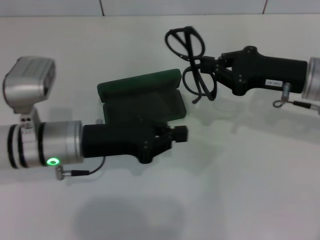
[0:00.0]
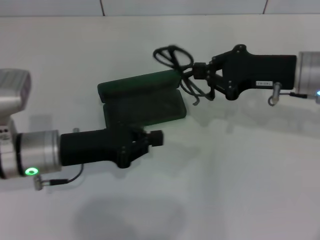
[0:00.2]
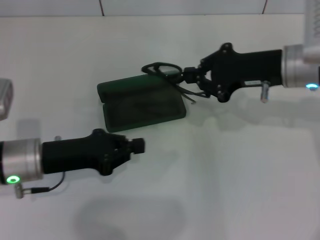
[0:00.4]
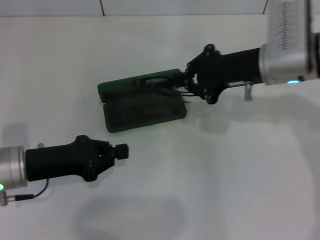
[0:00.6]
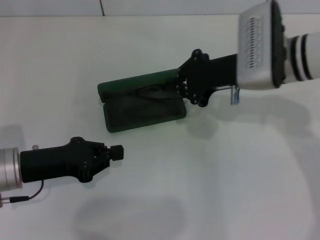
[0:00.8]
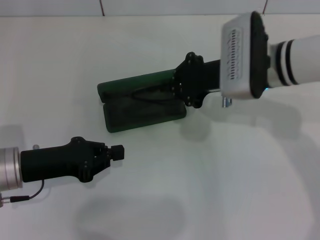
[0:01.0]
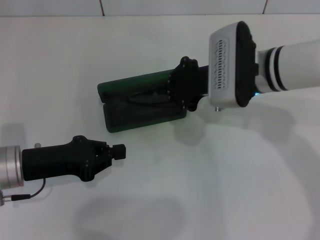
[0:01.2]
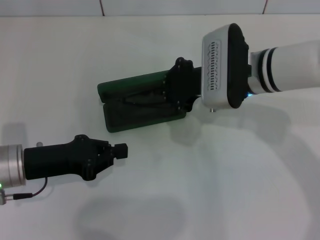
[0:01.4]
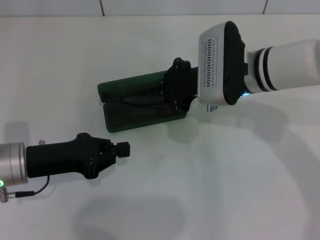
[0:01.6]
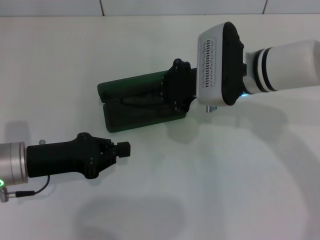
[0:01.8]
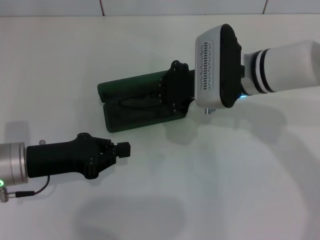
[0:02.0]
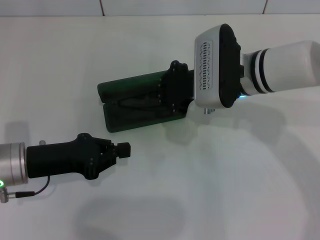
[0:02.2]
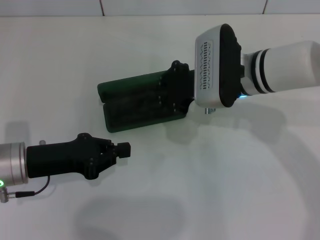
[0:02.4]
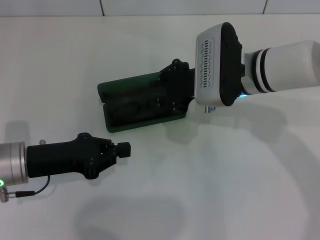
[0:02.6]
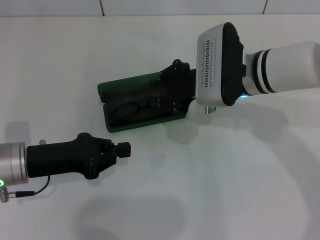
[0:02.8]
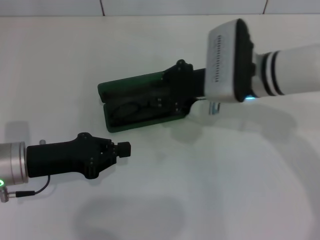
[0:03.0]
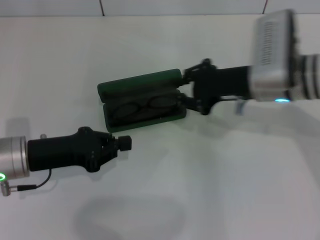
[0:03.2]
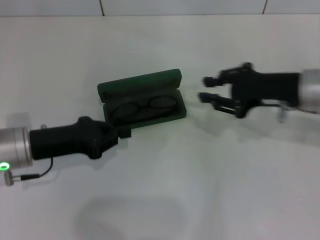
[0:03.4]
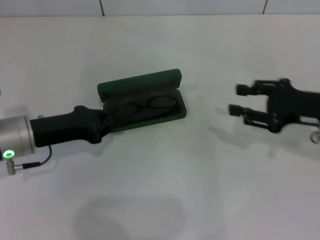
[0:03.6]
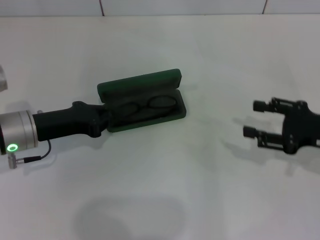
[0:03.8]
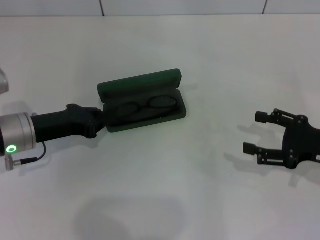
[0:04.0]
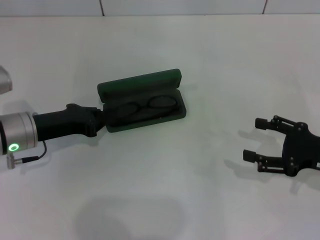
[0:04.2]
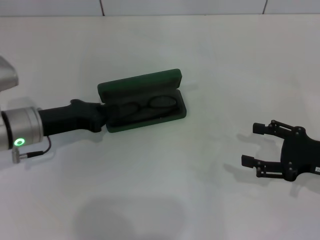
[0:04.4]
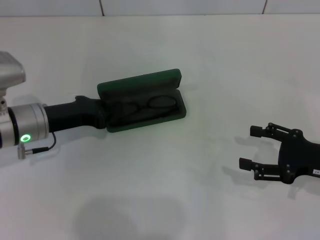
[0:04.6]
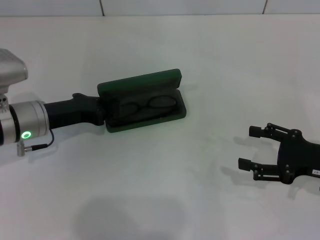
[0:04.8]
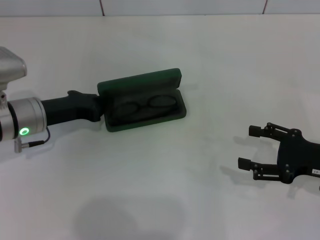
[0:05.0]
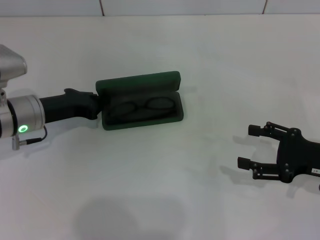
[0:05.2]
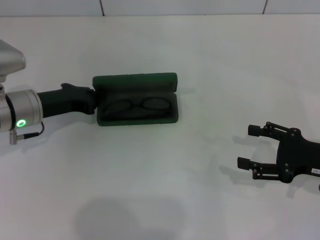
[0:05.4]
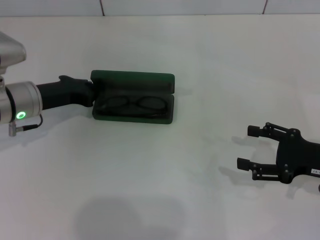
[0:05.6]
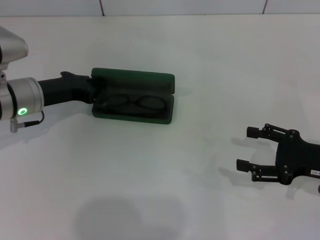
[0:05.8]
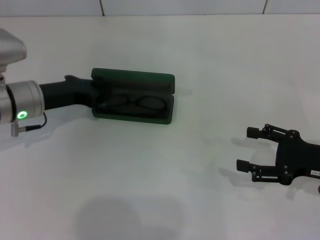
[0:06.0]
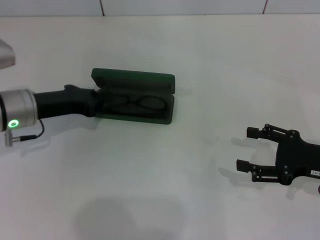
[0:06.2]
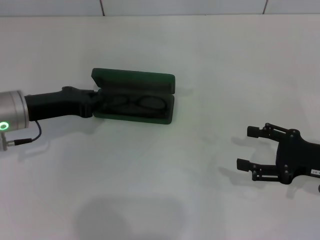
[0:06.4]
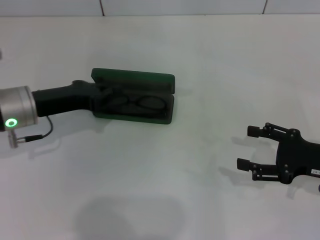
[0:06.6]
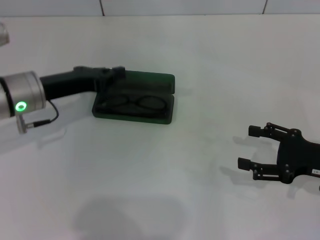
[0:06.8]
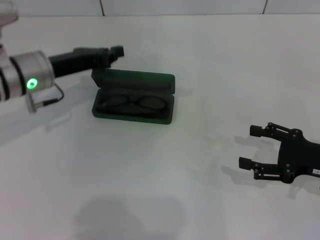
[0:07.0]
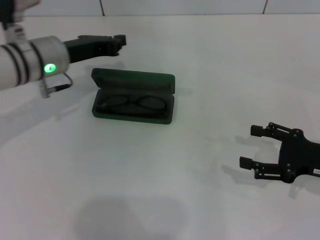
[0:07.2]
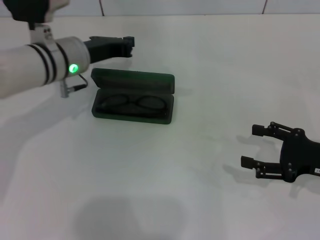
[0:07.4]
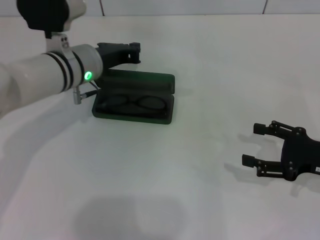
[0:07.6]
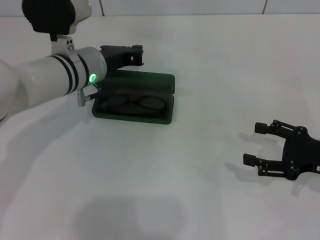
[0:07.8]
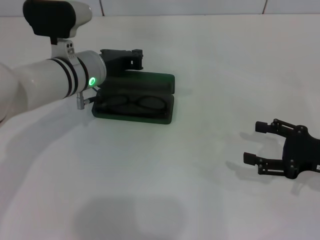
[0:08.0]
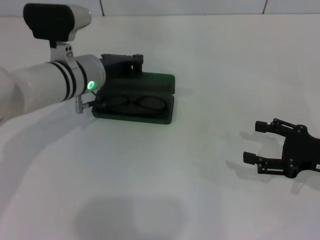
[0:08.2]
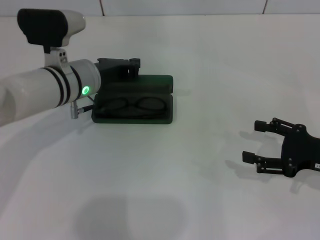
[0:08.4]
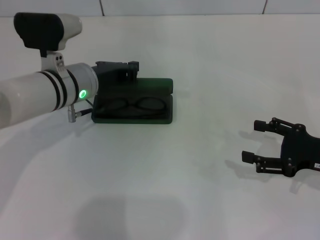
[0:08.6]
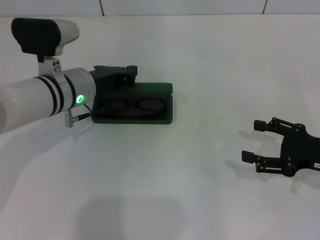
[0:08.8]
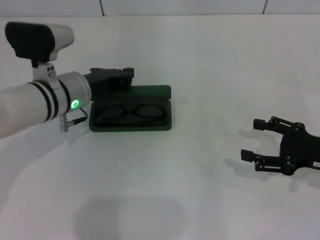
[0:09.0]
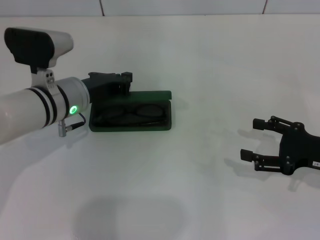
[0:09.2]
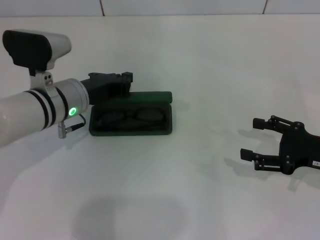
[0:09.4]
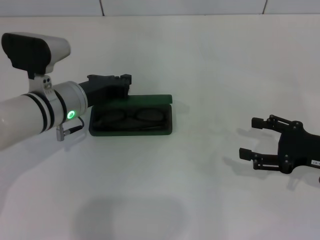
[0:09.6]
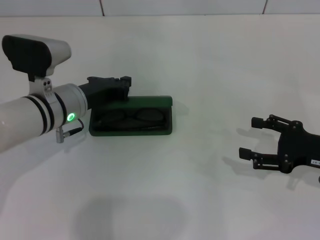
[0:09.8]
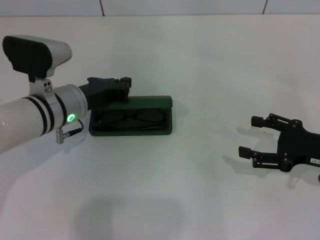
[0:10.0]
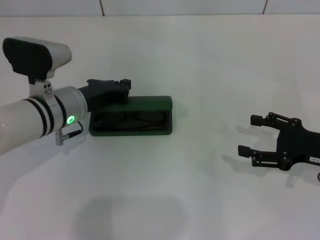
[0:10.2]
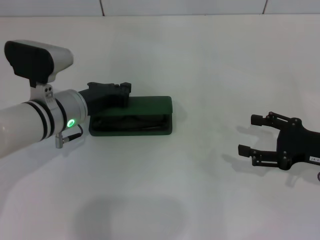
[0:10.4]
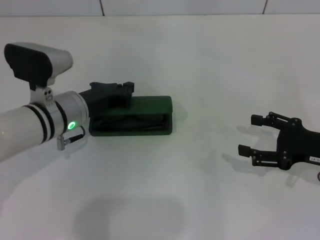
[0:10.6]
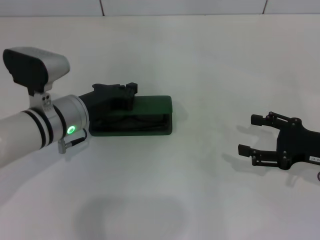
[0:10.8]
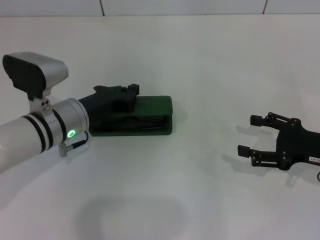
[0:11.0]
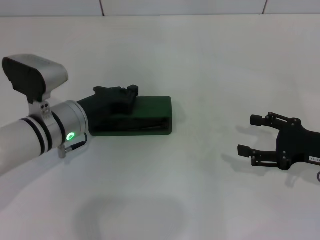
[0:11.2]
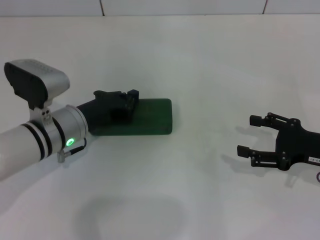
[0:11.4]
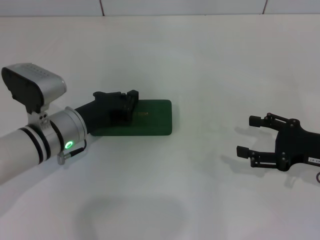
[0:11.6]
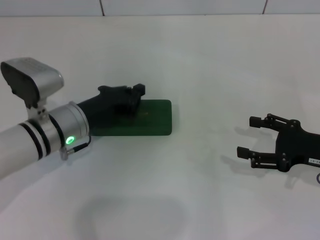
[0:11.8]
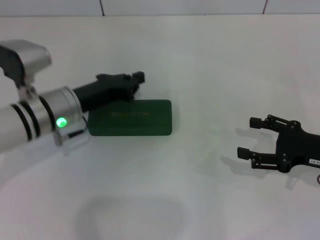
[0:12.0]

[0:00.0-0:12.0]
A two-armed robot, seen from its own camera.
Step, 0:00.0 to 0:02.4: Put the glasses into the case with your right hand.
Step, 0:02.6 to 0:11.4: Close the glasses case with your left hand.
0:00.0 to 0:01.6: The right gripper heads to the left, covering about 10 cm. Meanwhile the left gripper is displaced to the left by some 10 cm.
0:01.6 to 0:03.0: The grippers make only small movements.
0:03.0 to 0:04.4: The left gripper moves forward, approximately 5 cm. Meanwhile the right gripper travels to the right and backward by some 20 cm, and opens up.
0:04.4 to 0:06.0: The grippers stay close to where they were, moving slightly.
0:06.0 to 0:07.6: The left gripper heads to the right, covering some 10 cm.
0:07.6 to 0:09.0: The grippers move only a little.
0:09.0 to 0:10.4: There are only small adjustments of the grippers.
0:10.4 to 0:12.0: There are only small adjustments of the grippers.

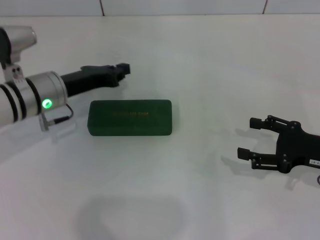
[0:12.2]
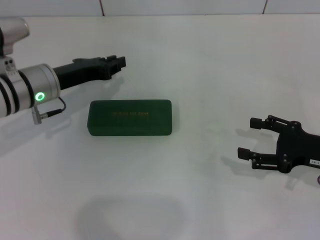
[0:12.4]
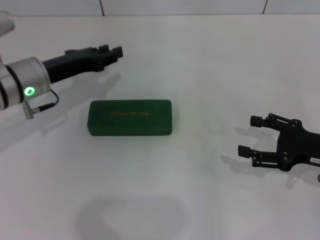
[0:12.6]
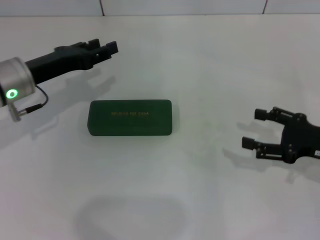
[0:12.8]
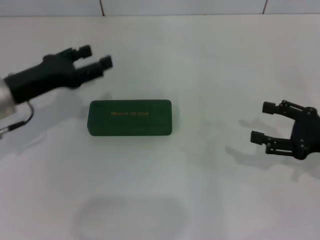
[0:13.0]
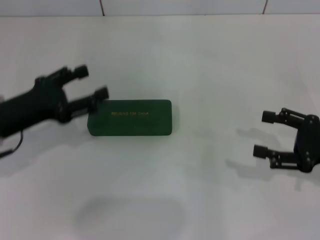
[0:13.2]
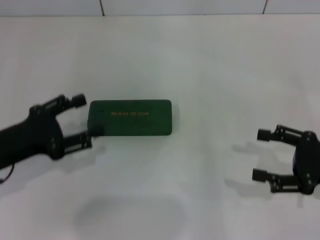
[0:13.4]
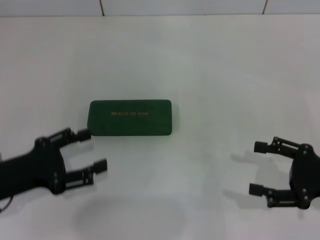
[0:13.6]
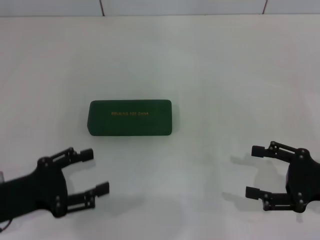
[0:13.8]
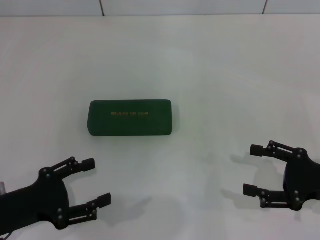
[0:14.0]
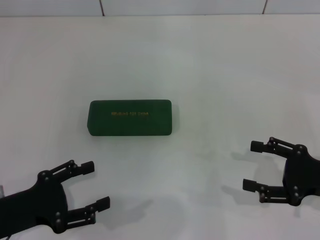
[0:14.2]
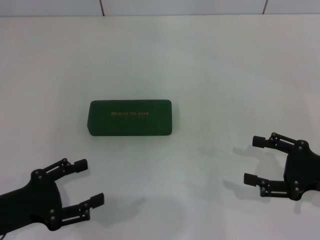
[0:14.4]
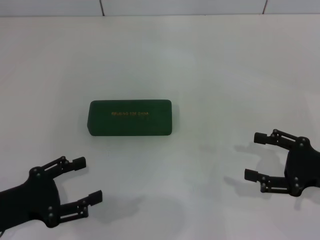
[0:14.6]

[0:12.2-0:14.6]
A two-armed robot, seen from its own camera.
0:12.2 to 0:13.4: The left gripper travels backward and to the left by some 15 cm, and opens.
0:13.4 to 0:14.6: The left gripper moves backward, some 5 cm.

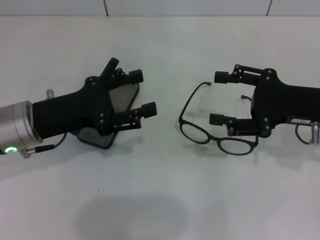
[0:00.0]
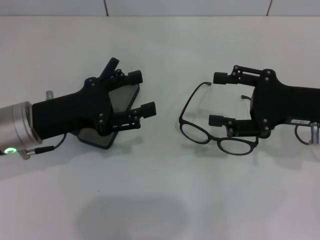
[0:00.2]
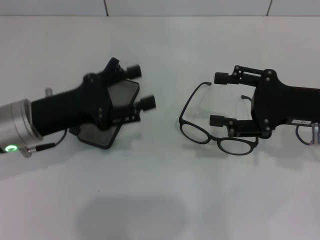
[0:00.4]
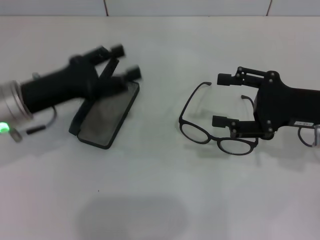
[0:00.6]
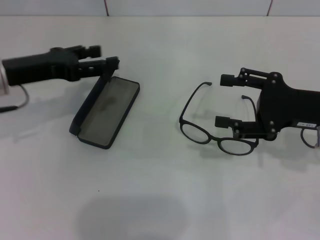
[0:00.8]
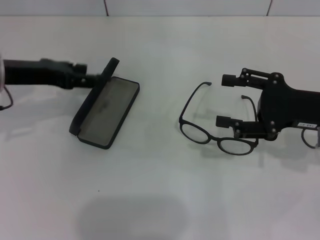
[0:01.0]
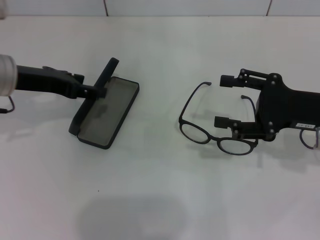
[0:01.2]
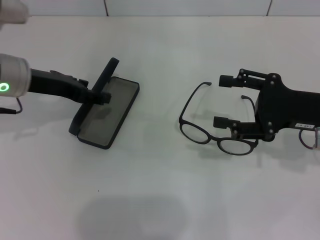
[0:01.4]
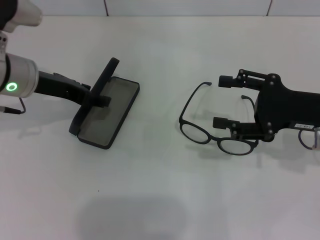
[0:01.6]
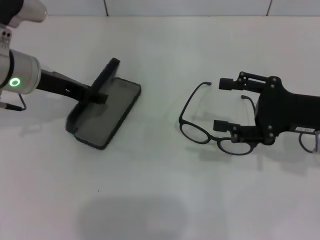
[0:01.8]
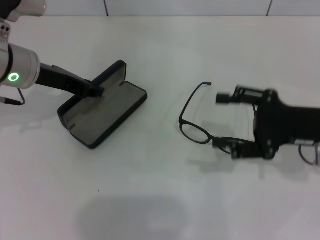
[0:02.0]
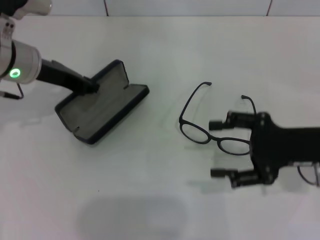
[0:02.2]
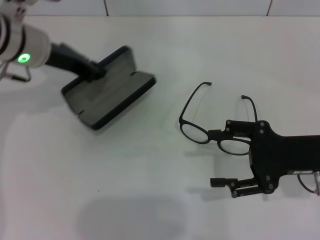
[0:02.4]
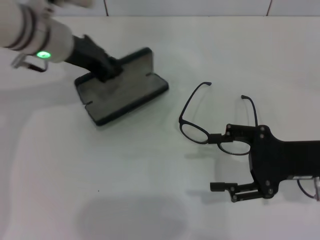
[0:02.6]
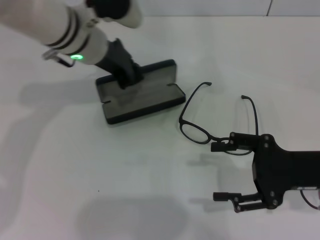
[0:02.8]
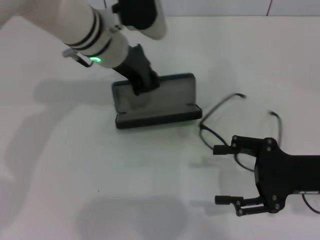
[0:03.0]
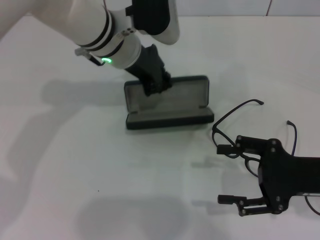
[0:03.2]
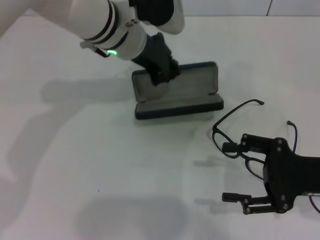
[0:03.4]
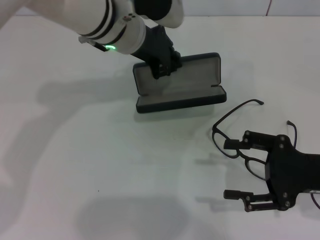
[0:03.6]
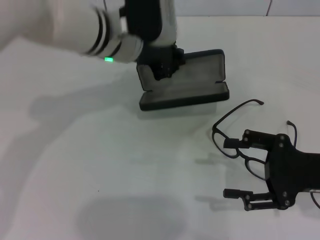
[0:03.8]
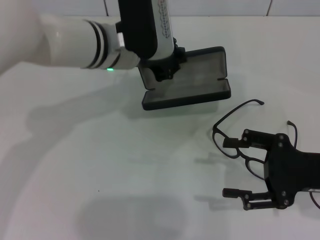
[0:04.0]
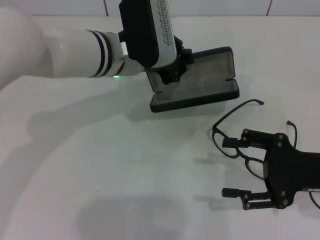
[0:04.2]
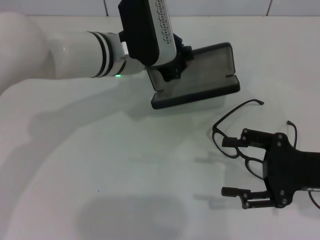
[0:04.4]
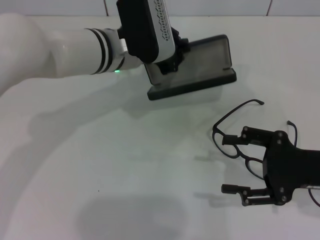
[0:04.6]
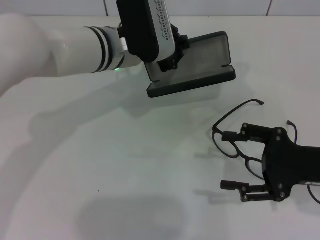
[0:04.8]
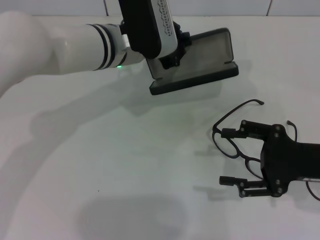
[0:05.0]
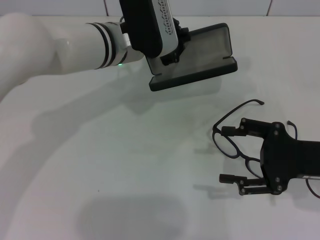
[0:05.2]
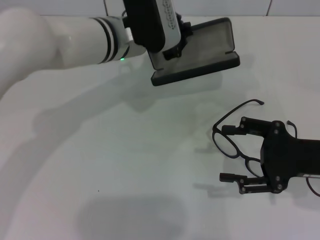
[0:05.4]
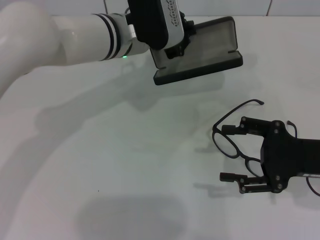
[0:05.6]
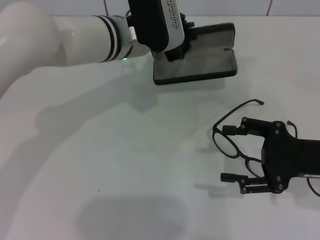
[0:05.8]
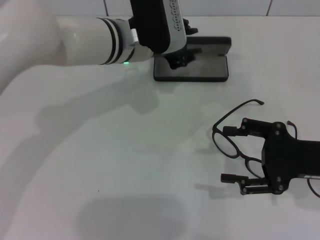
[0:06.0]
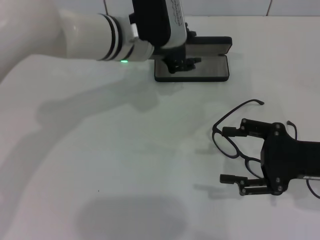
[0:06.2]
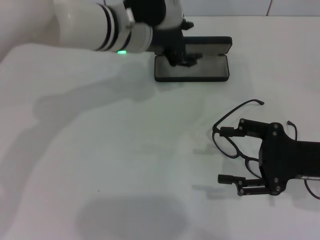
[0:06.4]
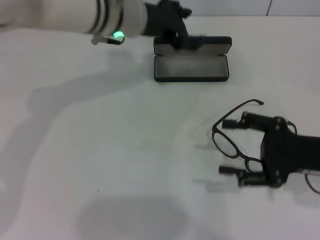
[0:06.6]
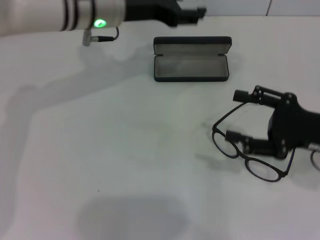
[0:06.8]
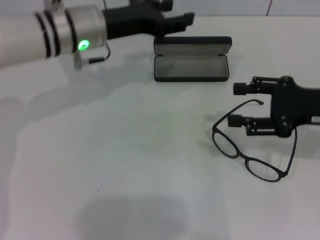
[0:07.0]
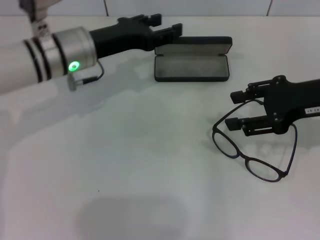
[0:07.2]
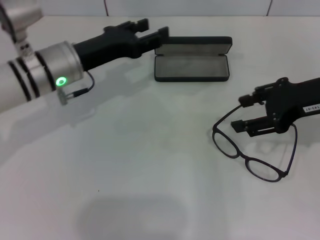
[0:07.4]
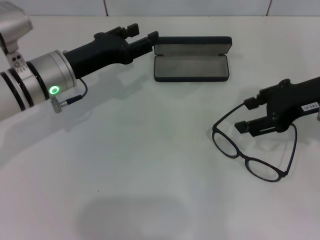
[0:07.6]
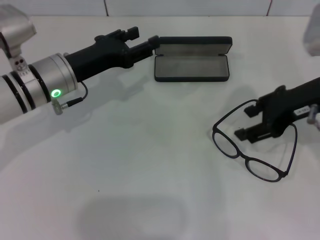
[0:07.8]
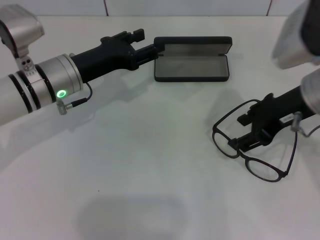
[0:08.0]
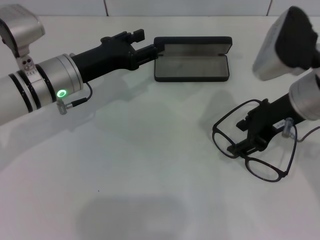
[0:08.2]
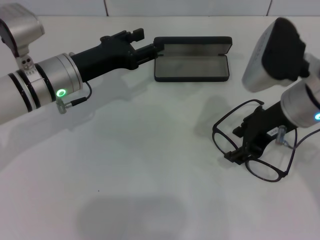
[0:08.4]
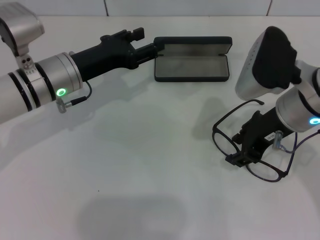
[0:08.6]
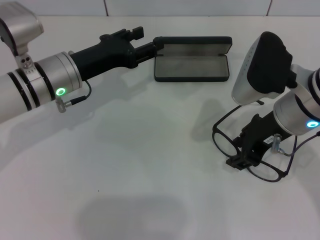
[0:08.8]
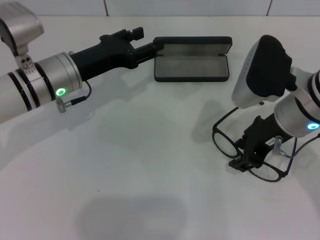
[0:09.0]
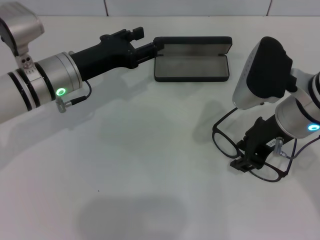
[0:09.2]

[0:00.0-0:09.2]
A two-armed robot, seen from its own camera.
Step, 0:00.0 to 0:01.6: Grab the glasses case with your left hand.
Step, 0:02.0 to 0:06.2: Place the glasses case in the center of the table with your left hand.
0:00.0 to 0:01.6: The left gripper heads forward, covering some 10 cm.
0:01.6 to 0:03.0: The left gripper travels to the right and forward by approximately 15 cm, and closes up. Meanwhile the right gripper is displaced backward by approximately 5 cm.
0:04.6 to 0:06.2: The left gripper opens its fingers.
0:06.2 to 0:07.6: The right gripper travels upward and forward by approximately 10 cm. Meanwhile the left gripper moves to the left and downward, approximately 15 cm, and opens up.
0:07.6 to 0:09.2: The right gripper shifts about 5 cm to the left.
